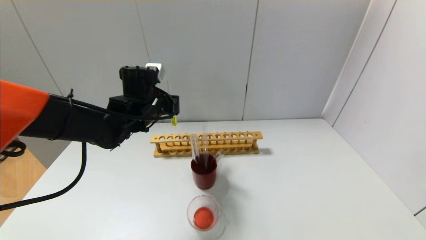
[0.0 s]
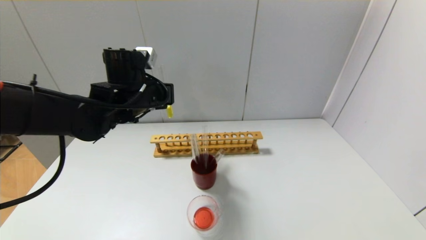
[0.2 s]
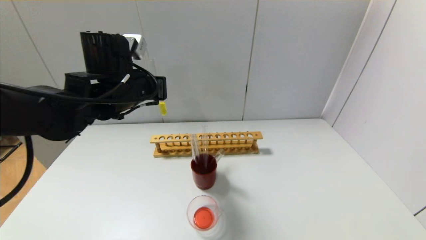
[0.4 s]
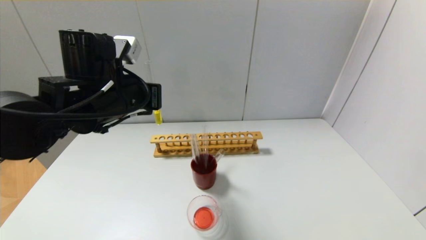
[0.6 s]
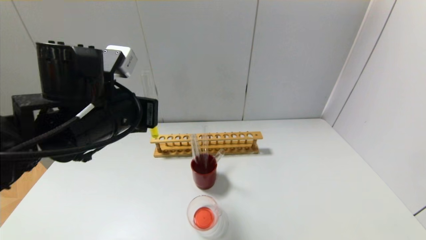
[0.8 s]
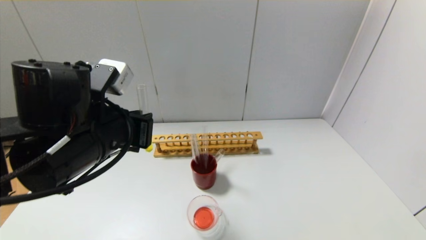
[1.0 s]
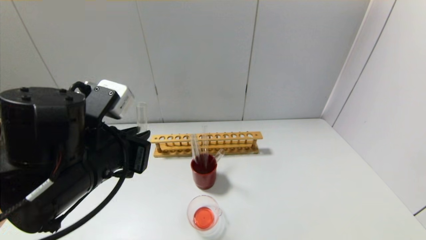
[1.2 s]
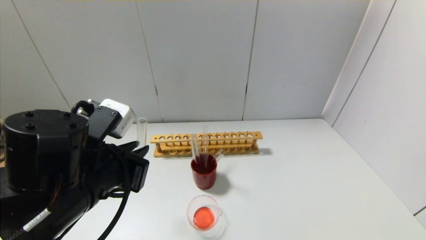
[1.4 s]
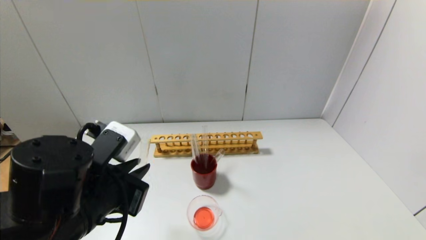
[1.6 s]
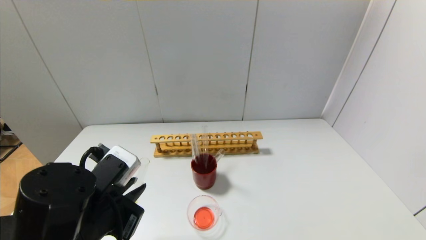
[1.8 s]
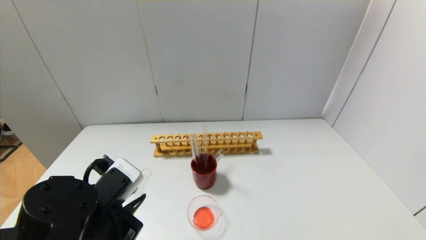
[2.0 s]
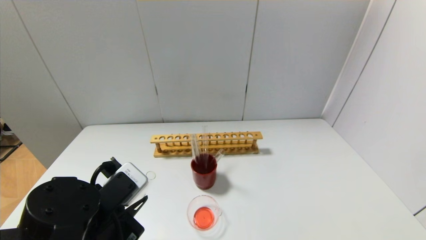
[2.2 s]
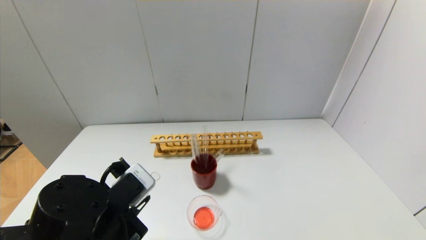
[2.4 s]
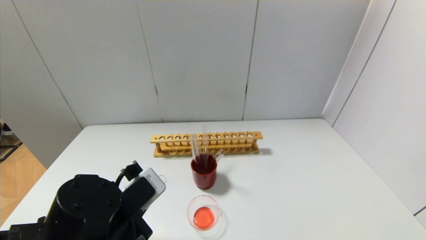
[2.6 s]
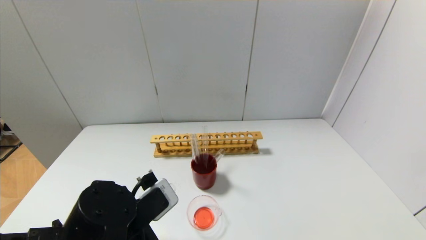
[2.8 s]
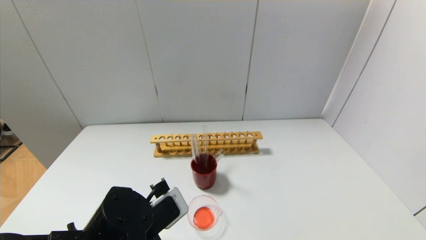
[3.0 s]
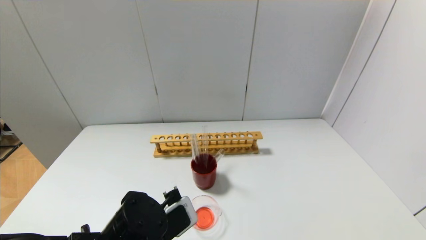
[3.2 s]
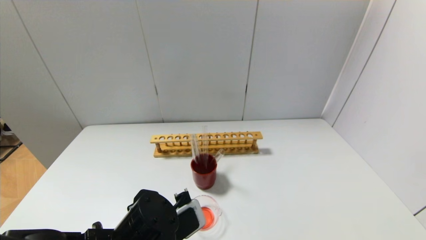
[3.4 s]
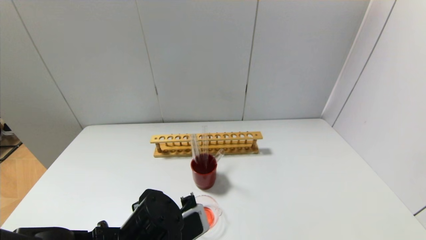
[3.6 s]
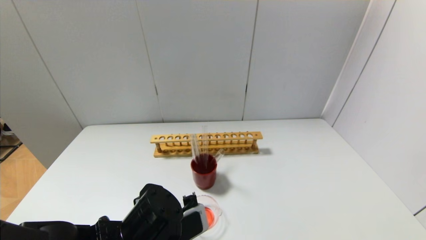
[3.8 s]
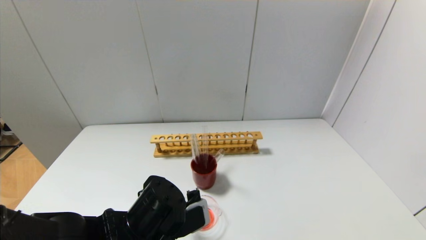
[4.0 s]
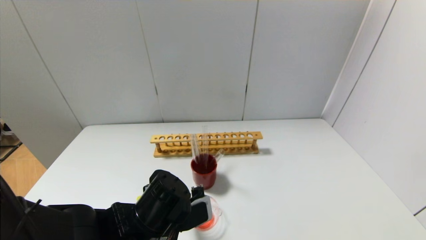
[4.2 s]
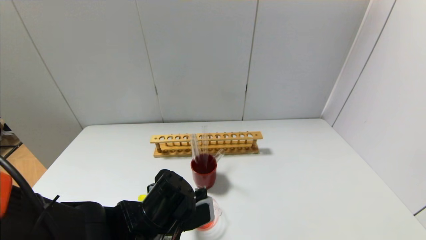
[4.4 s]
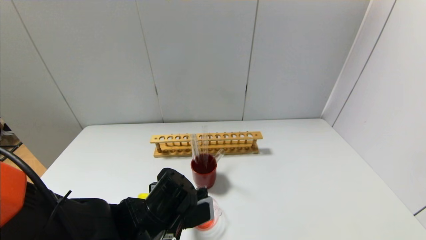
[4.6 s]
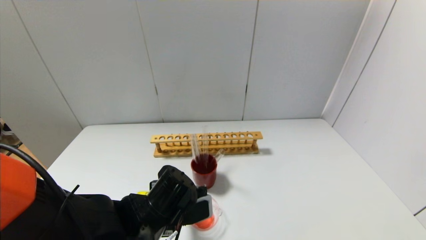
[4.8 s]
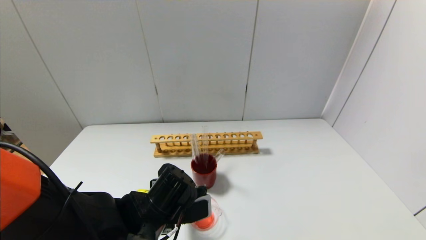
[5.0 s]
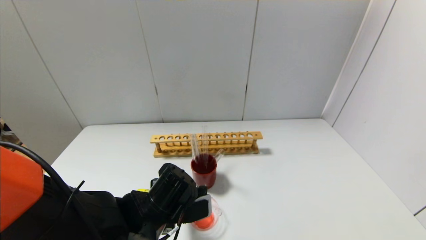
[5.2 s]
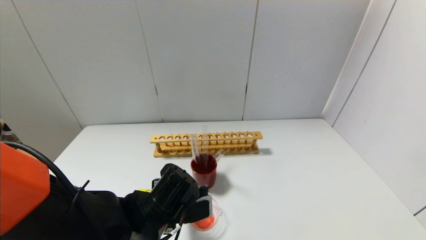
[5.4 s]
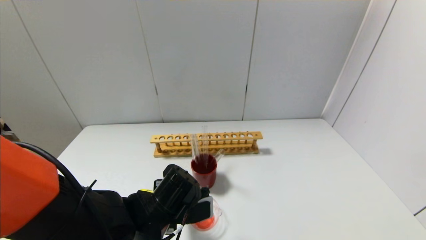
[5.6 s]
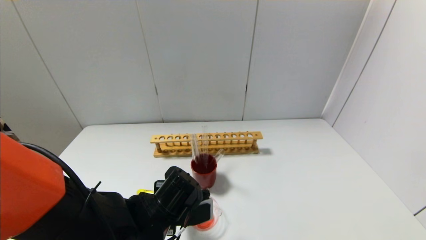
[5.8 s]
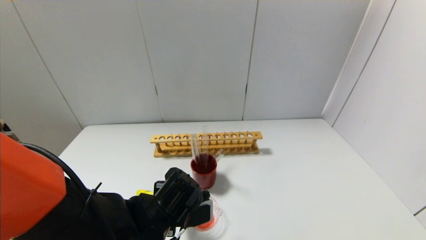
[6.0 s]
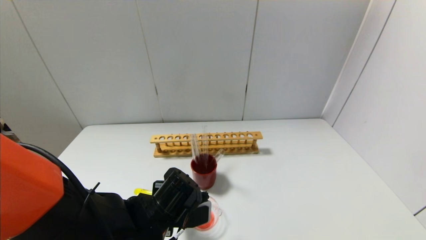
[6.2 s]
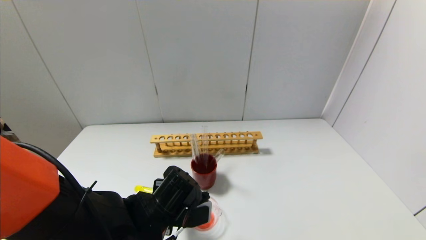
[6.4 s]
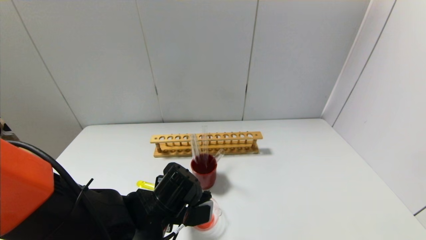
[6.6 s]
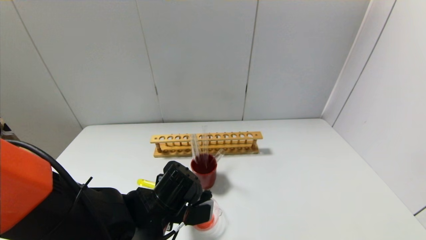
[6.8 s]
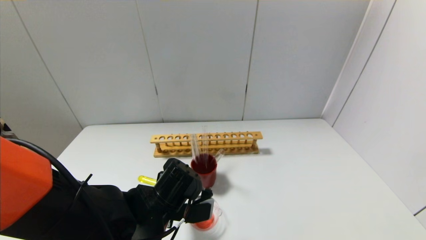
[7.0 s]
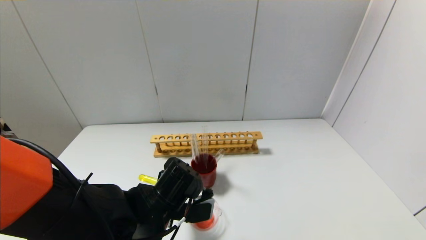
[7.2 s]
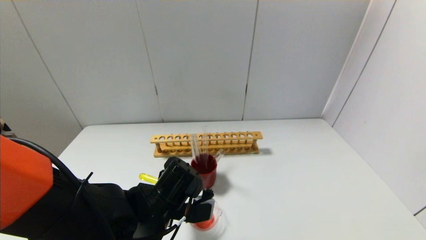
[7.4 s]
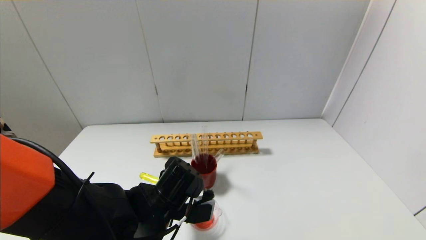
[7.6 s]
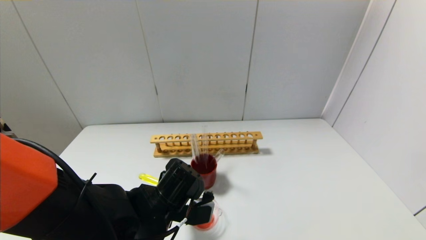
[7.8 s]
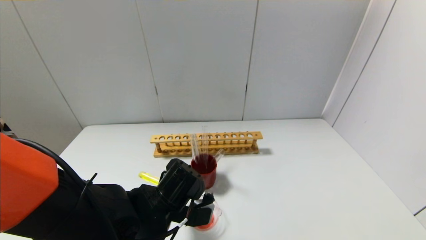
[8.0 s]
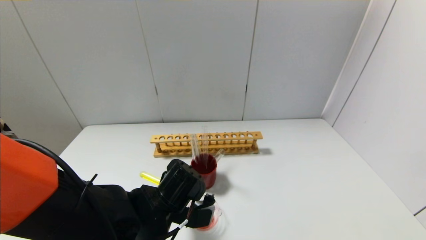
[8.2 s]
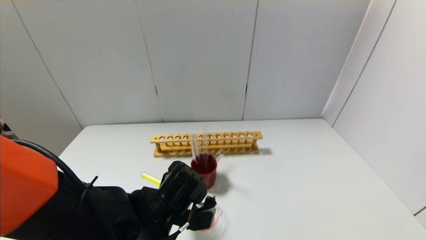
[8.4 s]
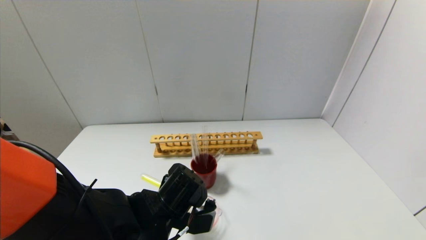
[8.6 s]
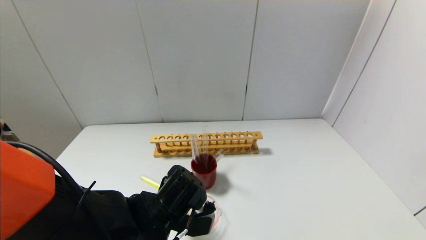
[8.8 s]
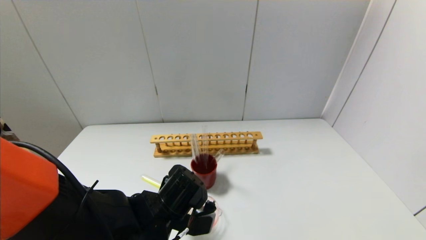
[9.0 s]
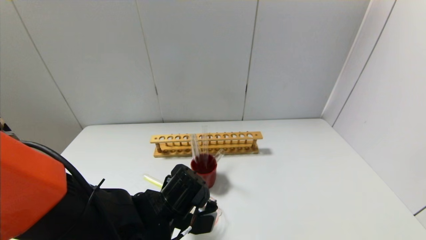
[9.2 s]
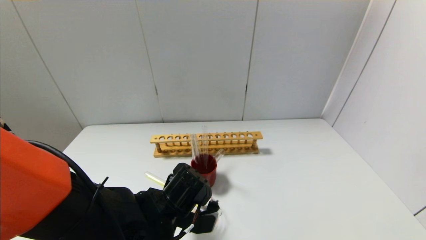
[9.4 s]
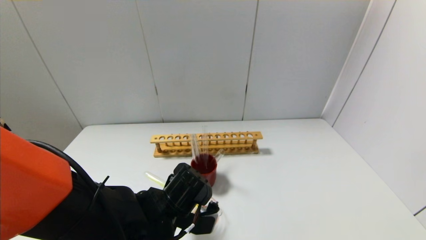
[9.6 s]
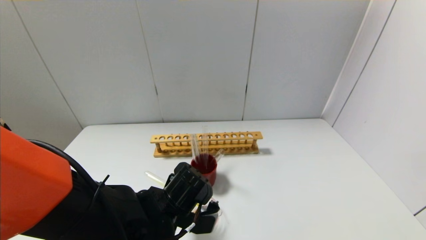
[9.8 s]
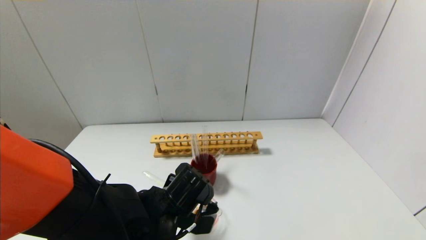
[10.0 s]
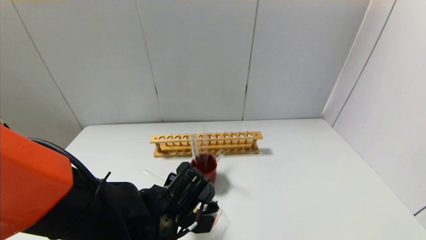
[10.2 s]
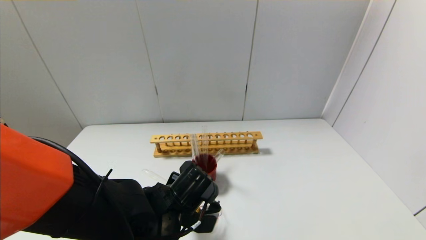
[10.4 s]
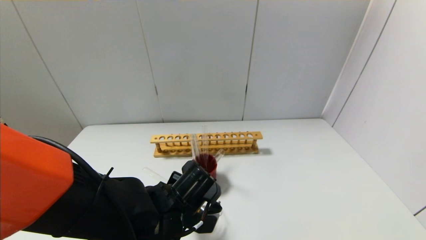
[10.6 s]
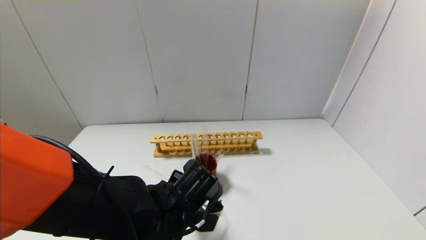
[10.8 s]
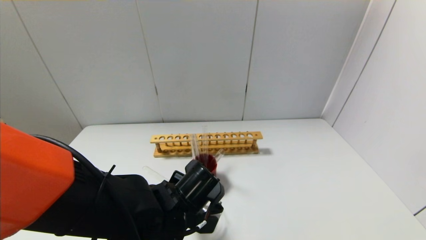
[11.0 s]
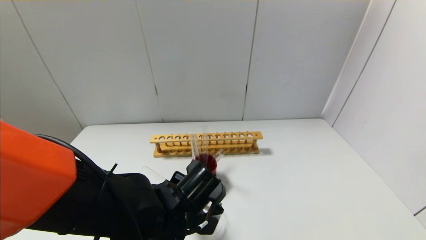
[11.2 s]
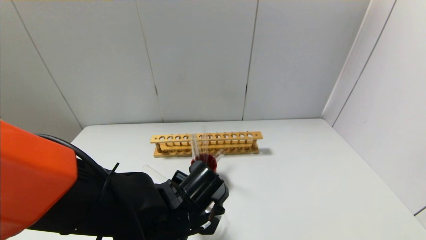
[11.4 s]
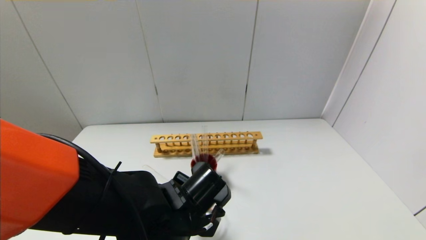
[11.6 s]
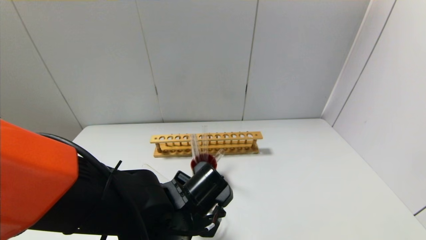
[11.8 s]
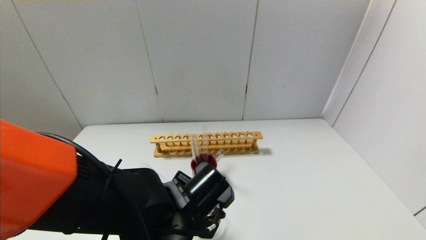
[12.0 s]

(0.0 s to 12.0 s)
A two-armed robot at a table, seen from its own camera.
0.0 s - 1.6 s: The left gripper heads backward, covering approximately 20 cm.
1.6 s - 3.0 s: The left gripper goes roughly 5 cm downward.
3.0 s - 4.4 s: The left gripper changes place by about 5 cm.
4.4 s - 6.0 s: The grippers make only small movements.
6.0 s - 9.0 s: The grippers move only a little.
9.0 s - 12.0 s: There are only small adjustments of the grippers.

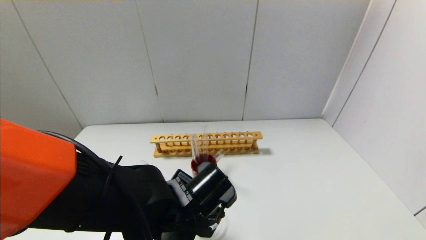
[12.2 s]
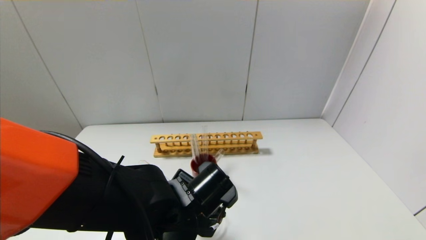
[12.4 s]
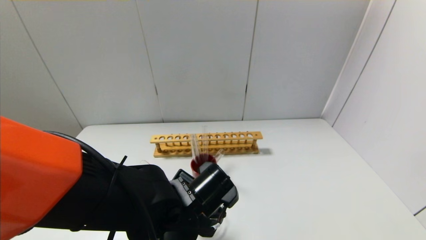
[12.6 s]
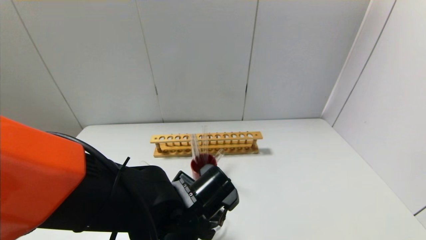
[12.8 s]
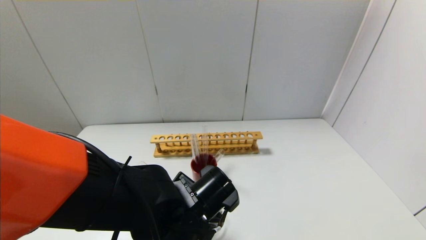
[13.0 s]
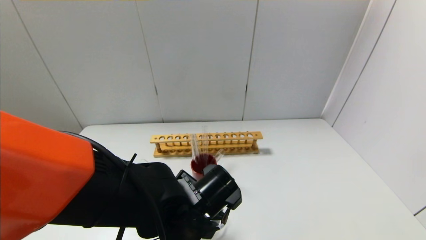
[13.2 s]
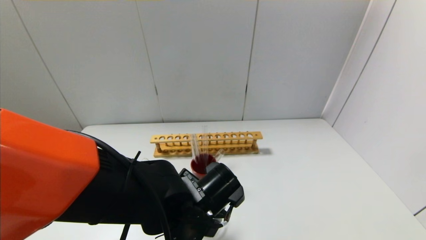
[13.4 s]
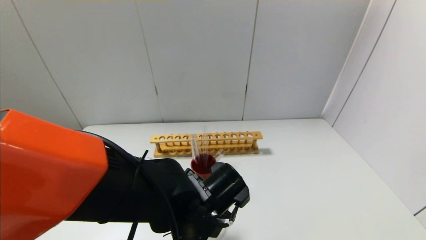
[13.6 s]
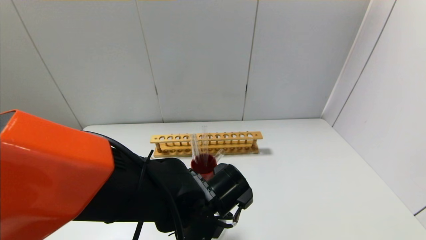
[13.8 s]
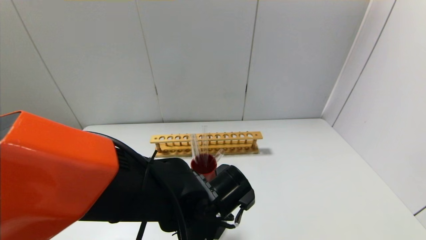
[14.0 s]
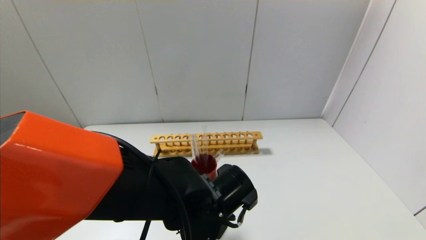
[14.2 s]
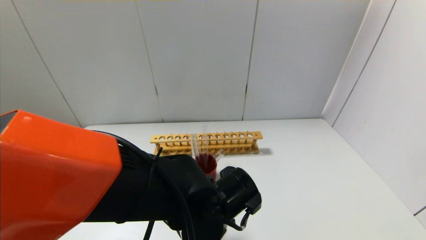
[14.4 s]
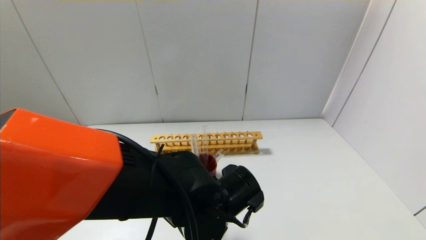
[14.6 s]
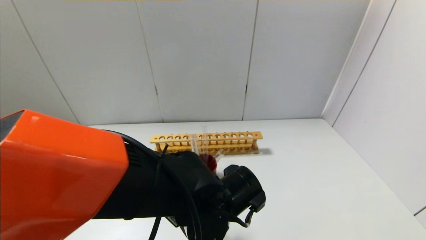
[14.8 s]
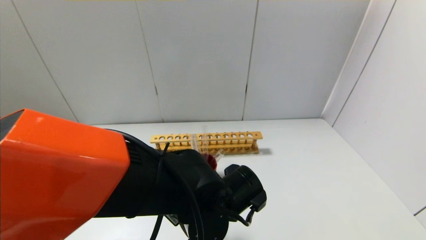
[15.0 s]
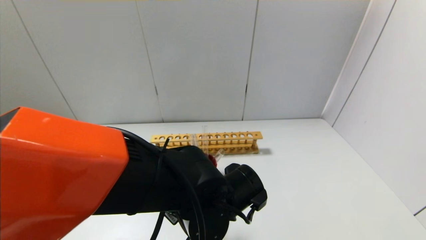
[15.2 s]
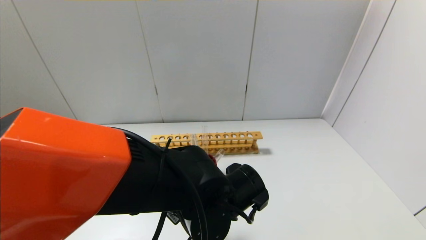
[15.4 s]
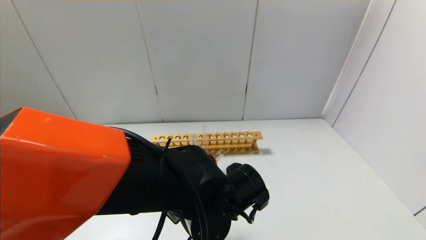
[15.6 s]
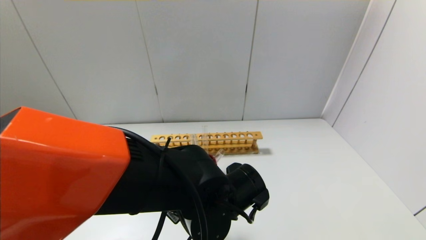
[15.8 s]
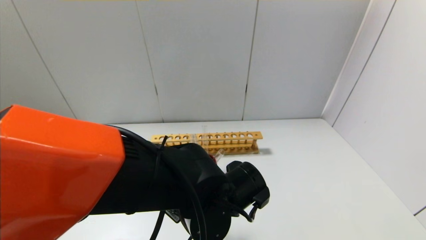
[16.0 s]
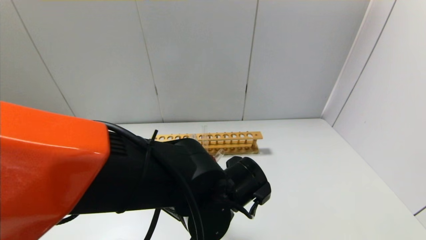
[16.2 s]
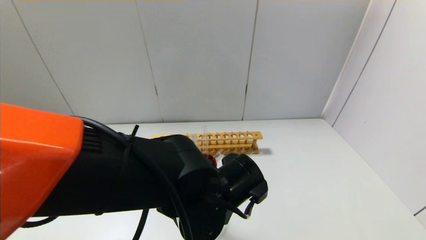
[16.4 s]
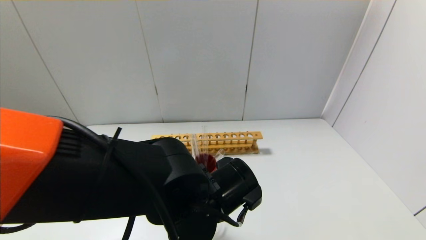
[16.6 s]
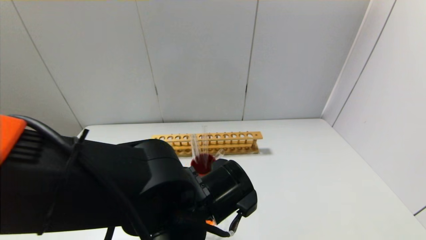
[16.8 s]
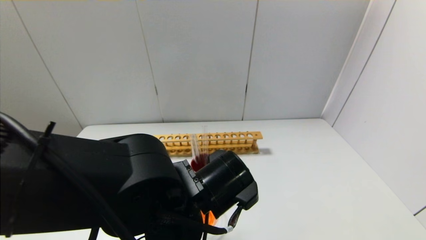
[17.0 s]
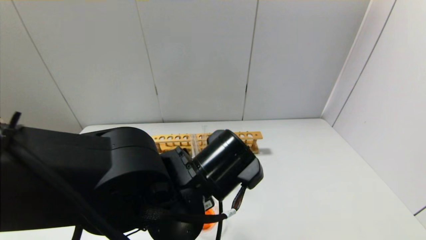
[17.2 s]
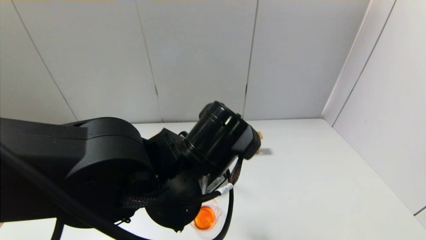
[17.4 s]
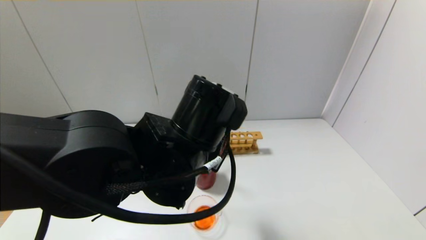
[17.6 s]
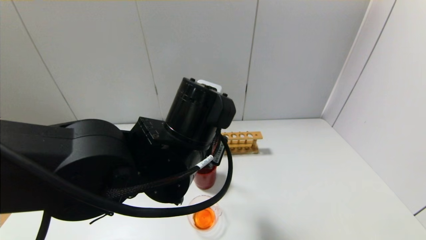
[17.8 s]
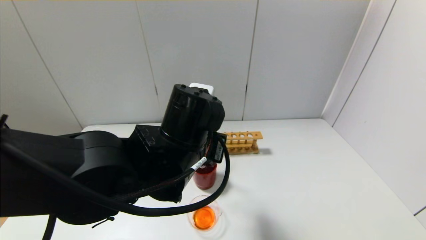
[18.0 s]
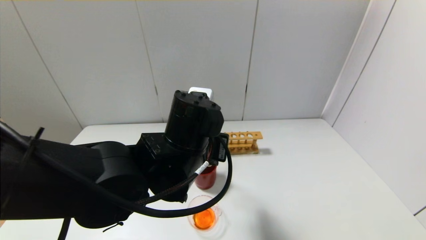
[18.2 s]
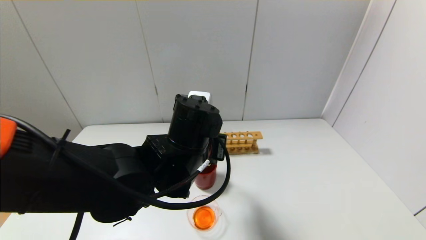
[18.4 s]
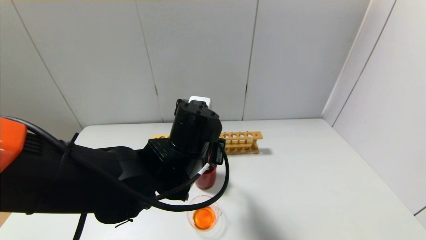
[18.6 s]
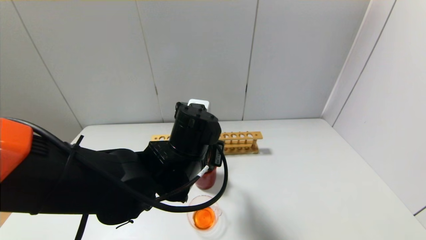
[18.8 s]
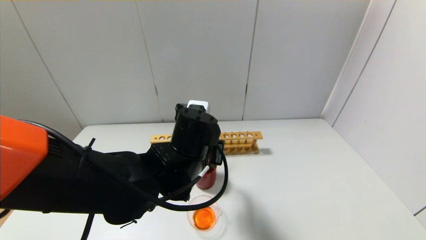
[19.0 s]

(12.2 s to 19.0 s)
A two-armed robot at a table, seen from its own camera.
Step, 12.2 s - 15.8 s: Pour the yellow reagent into the graduated cylinder with the left gripper.
12.2 s - 16.2 s: The grippers move only a little.
16.2 s - 17.6 s: The left gripper is displaced upward by some 10 cm.
17.6 s - 19.0 s: The left gripper is displaced downward by about 5 cm.
